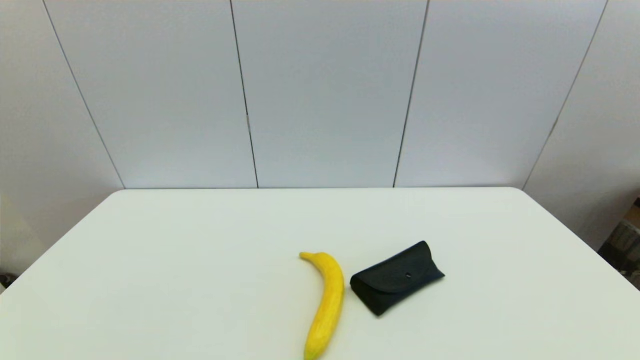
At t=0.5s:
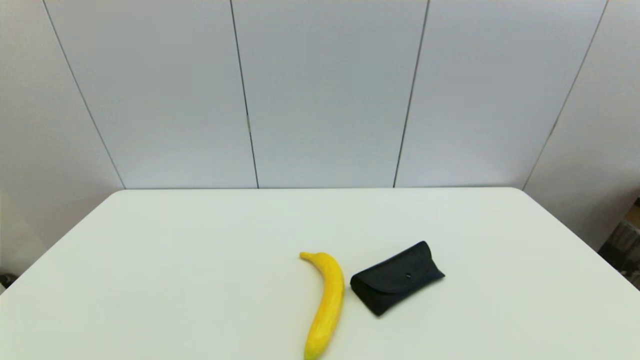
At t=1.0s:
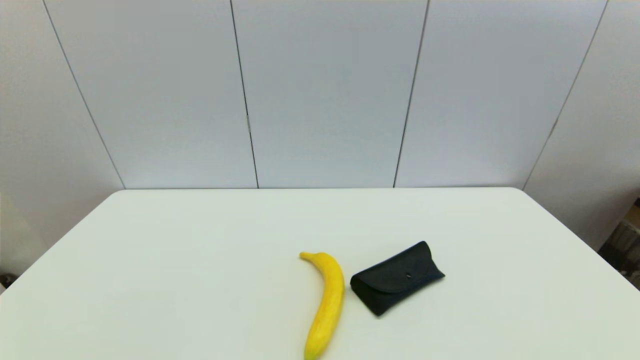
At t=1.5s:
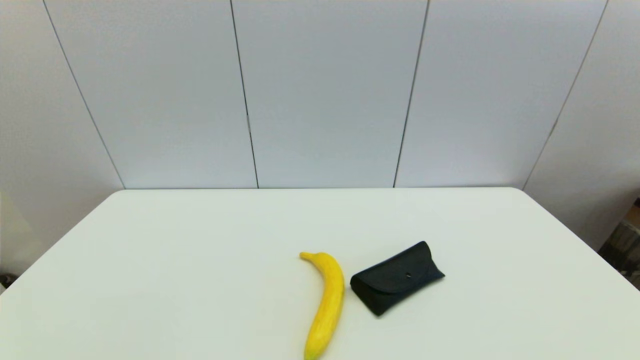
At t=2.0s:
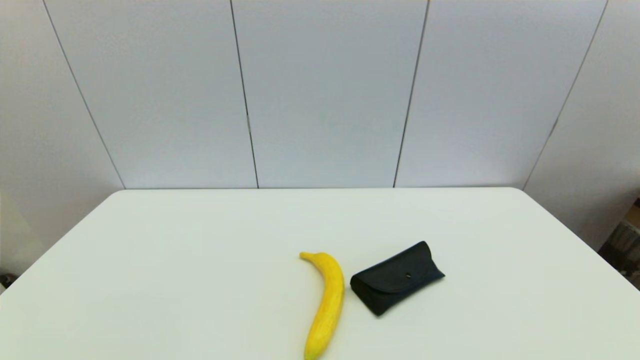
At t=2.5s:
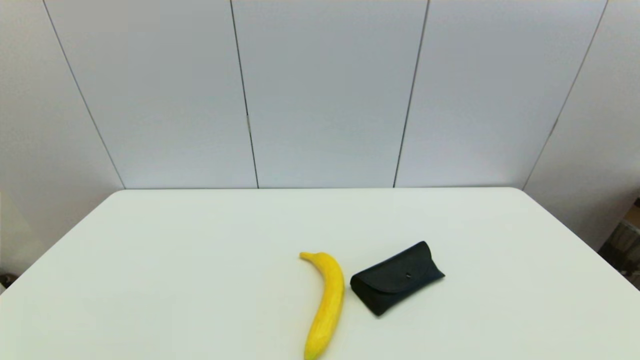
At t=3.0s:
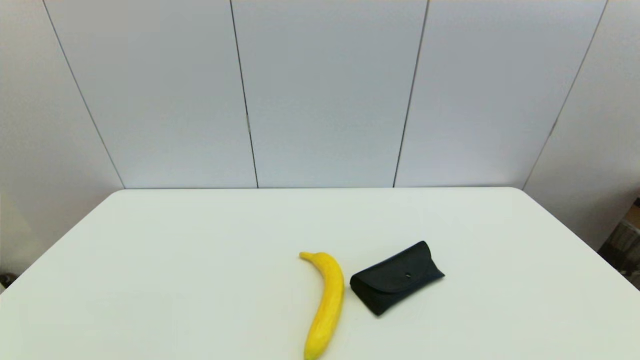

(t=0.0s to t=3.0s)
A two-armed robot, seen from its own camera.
t=0.0s - t=3.0s: Neither gripper changes place.
